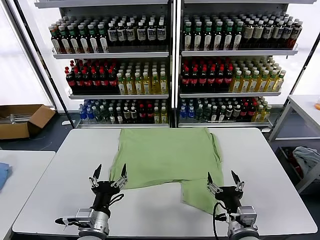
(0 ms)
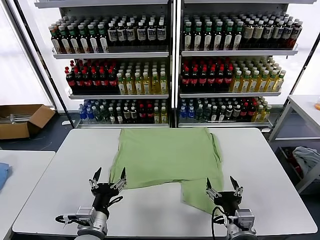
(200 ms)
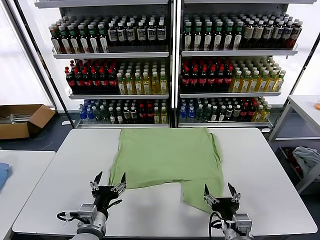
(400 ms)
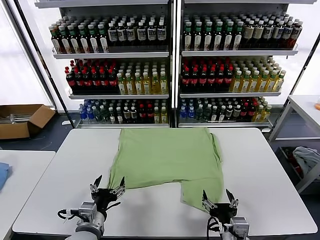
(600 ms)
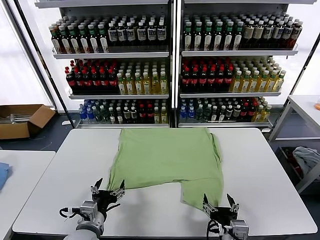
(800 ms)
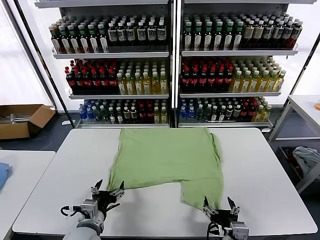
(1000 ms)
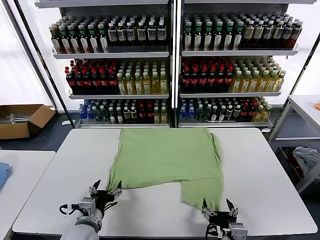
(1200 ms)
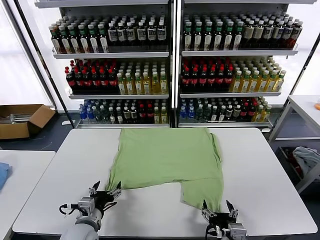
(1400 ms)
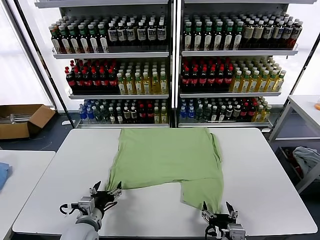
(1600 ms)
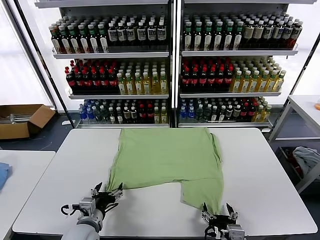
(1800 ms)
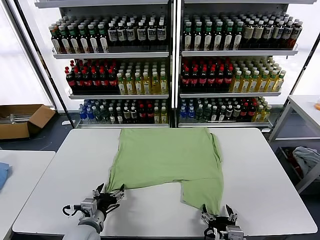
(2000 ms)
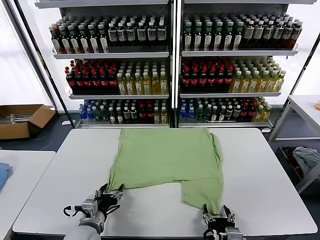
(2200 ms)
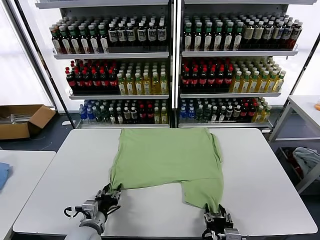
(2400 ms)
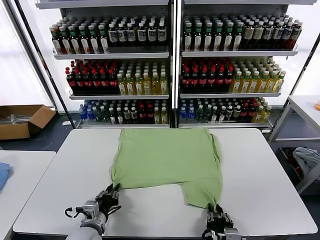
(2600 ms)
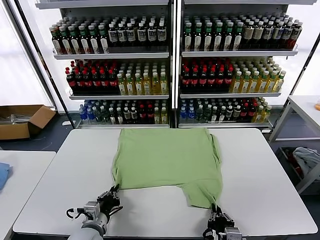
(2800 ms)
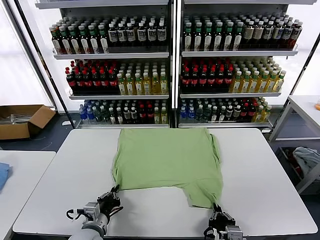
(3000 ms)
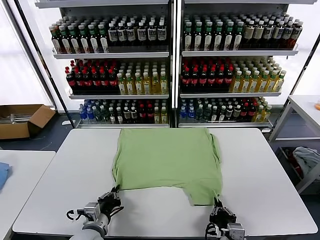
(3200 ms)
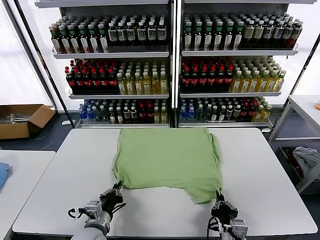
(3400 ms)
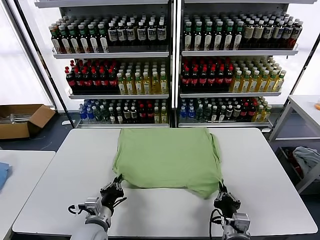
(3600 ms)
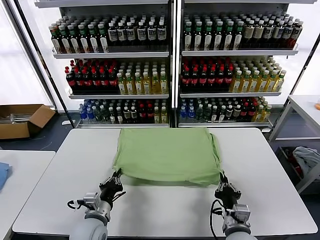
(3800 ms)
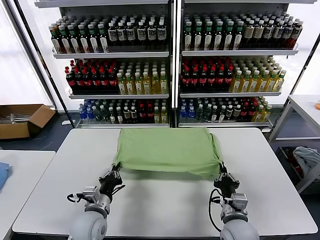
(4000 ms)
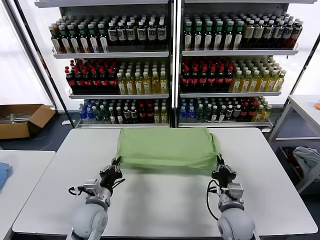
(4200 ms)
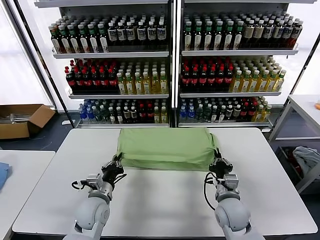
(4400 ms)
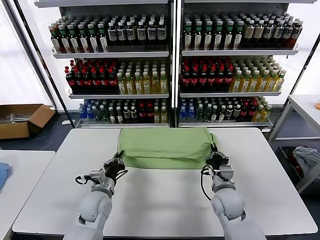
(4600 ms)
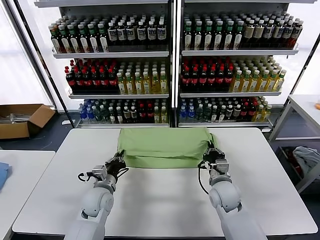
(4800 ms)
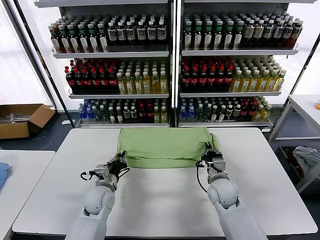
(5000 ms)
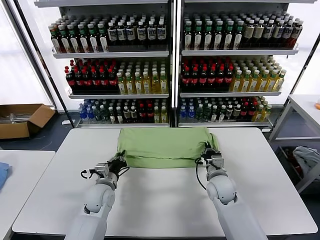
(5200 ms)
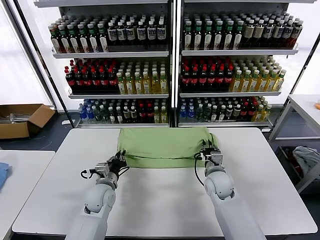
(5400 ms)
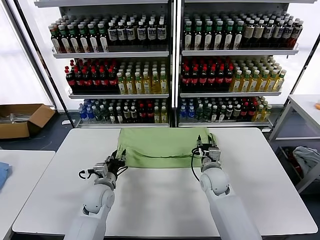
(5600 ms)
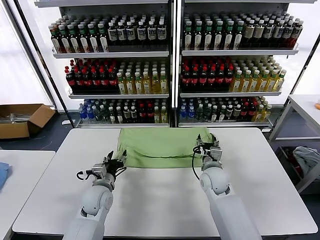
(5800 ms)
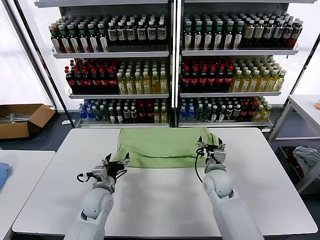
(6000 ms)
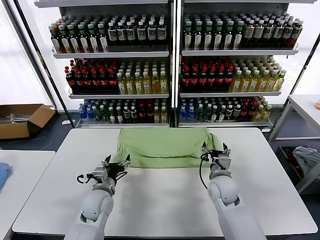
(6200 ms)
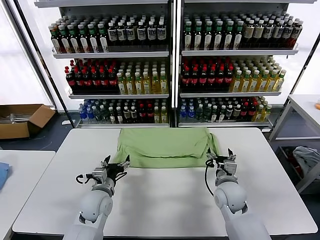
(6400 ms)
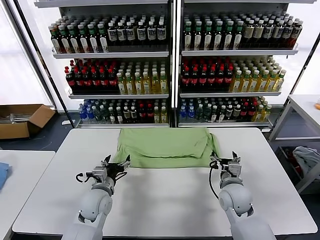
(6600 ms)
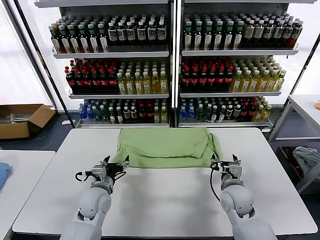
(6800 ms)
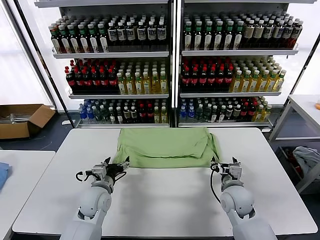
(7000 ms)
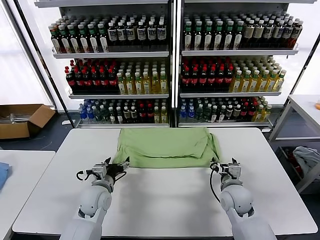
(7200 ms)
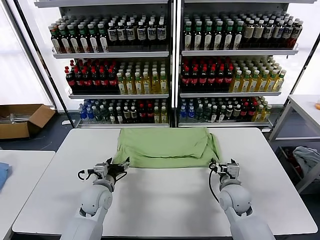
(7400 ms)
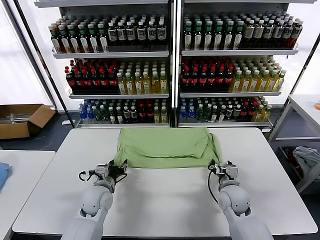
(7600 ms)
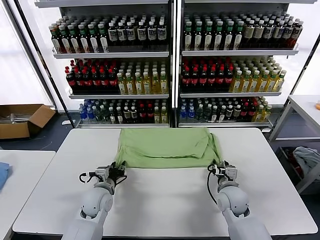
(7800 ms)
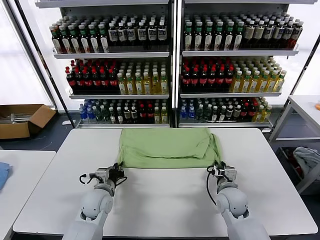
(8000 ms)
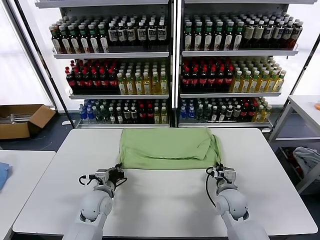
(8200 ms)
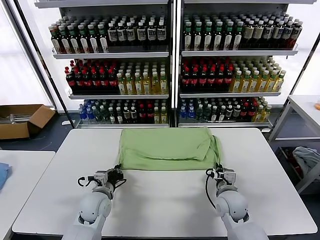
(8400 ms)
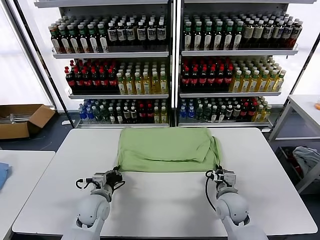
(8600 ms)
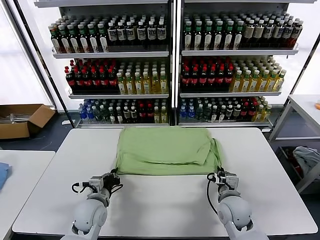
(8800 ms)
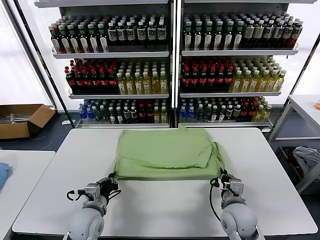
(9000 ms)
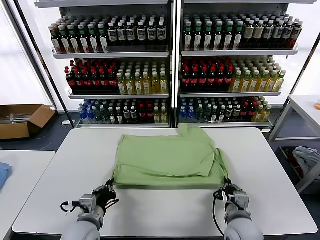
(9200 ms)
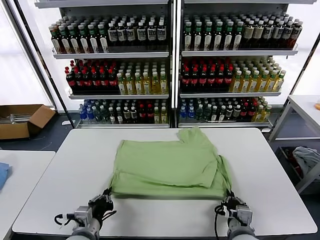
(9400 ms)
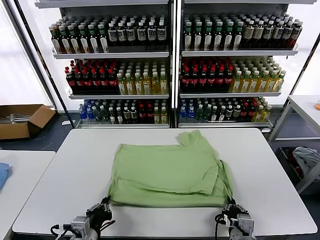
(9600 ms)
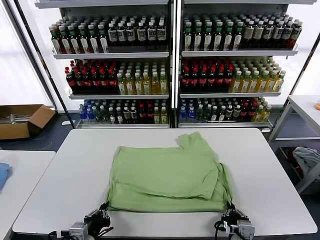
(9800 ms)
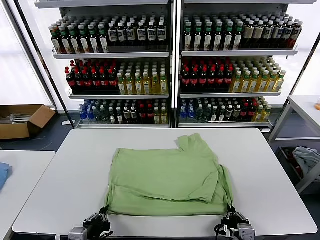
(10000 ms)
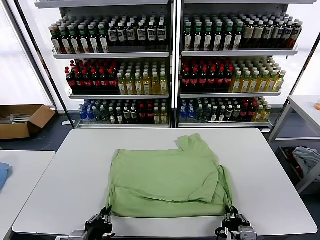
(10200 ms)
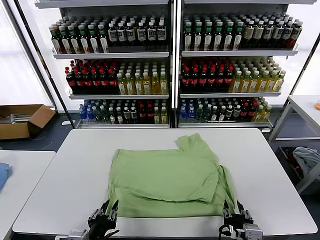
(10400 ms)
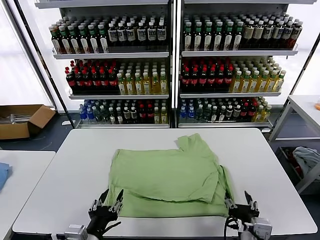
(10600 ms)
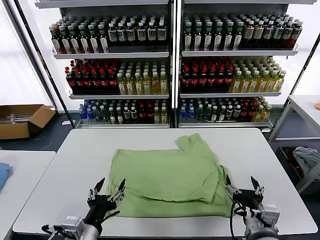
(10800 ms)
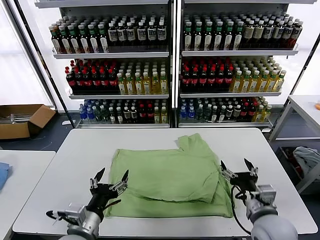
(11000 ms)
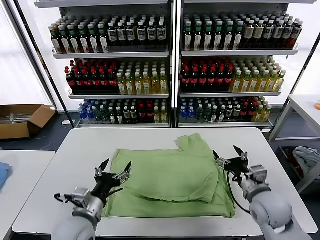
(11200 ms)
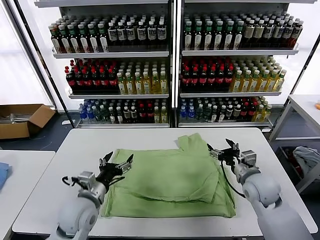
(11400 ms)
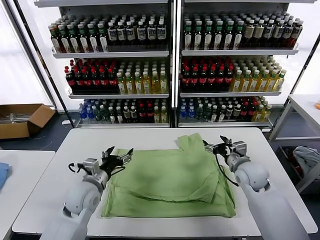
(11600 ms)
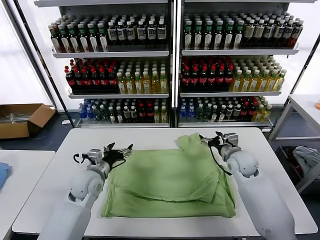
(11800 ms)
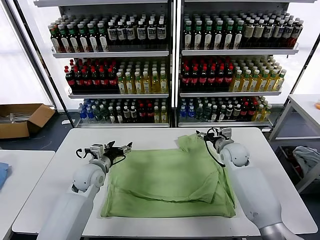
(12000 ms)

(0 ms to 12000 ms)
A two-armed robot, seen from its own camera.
Task of the whole recording: fold and organize the clothes.
Step, 0 ms - 2800 ms: use both grippers simultaneously to clamp the lower edge of the clothing fabric.
Step, 3000 ms - 5400 ms: use both grippers to drag the lower edge of the fabric forward and fold it over the upper edge.
Step, 5800 ms - 10400 ms: Drag the clothes downward with both gripper.
1600 ms - 3000 ms: The left gripper closes. Meanwhile the right gripper closes its fingers.
3000 ms - 4400 ms: The left gripper heads forward, covering some 10 cm. Meanwhile the right gripper heads forward, covering about 20 cm.
4400 ms - 6000 ms: The right gripper heads forward, covering approximately 5 cm, and opens up. Meanwhile the left gripper opens its fingers.
6000 ms - 7600 ms: The right gripper moves roughly 5 cm.
7600 ms - 9000 ms: Both grippers move backward, roughly 10 cm. The right gripper closes. The left gripper closes.
9000 ms - 10400 ms: Both grippers travel together backward, approximately 15 cm. The right gripper opens its fingers. The left gripper opens its fingers.
10400 ms - 12000 ms: The two grippers go approximately 35 cm forward. The right gripper opens its fingers. The left gripper opens its fingers.

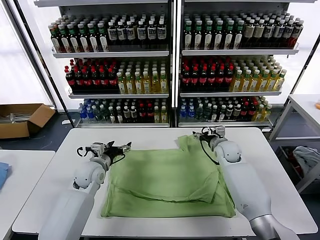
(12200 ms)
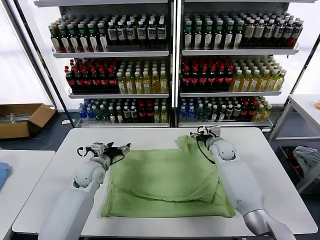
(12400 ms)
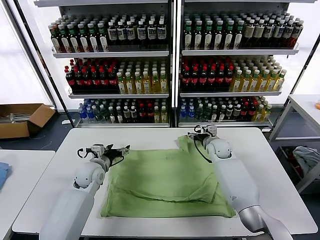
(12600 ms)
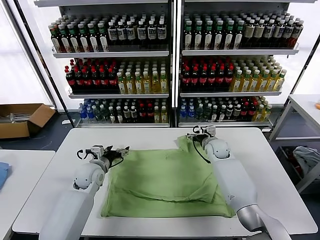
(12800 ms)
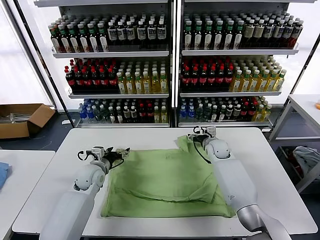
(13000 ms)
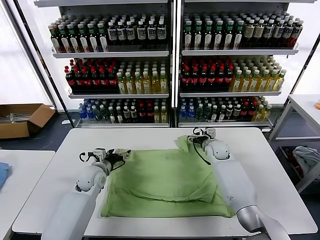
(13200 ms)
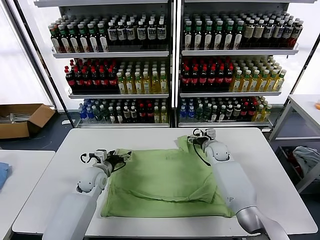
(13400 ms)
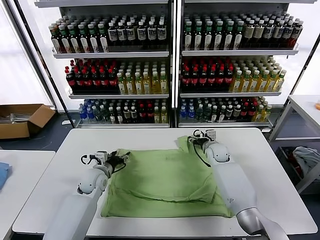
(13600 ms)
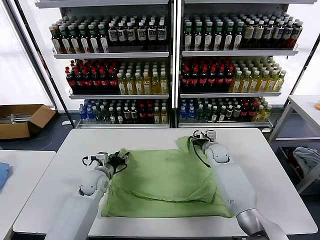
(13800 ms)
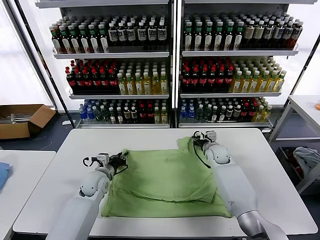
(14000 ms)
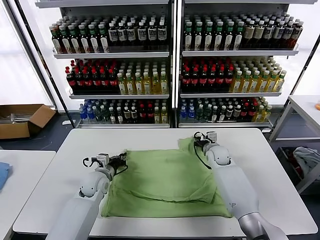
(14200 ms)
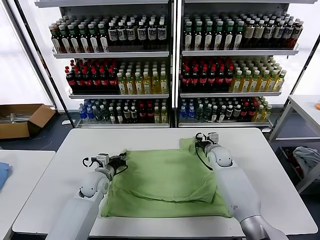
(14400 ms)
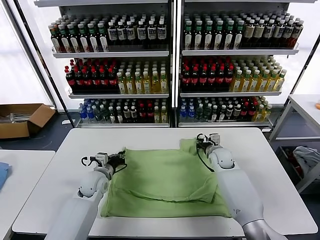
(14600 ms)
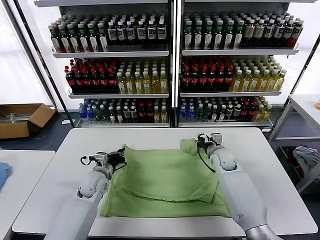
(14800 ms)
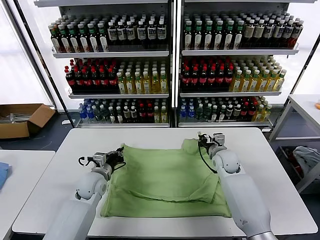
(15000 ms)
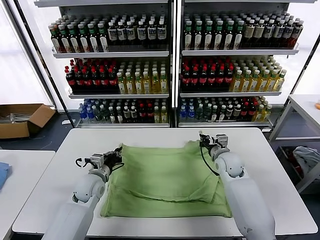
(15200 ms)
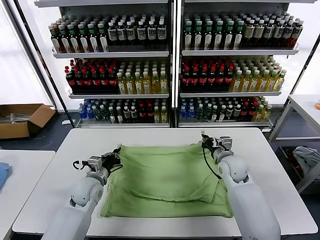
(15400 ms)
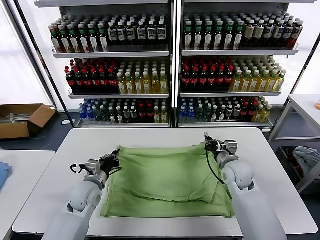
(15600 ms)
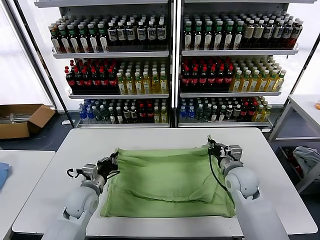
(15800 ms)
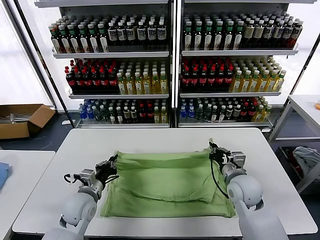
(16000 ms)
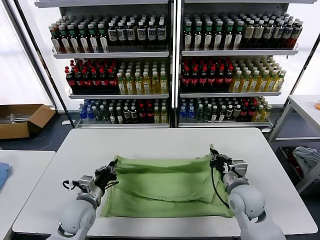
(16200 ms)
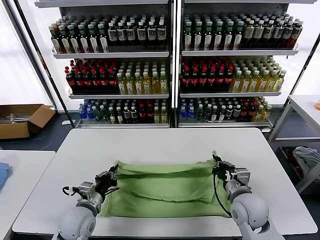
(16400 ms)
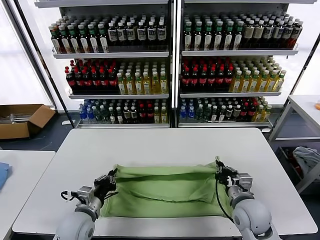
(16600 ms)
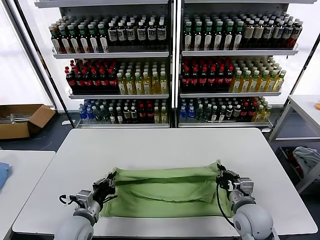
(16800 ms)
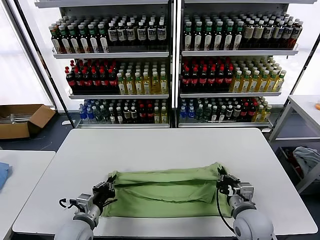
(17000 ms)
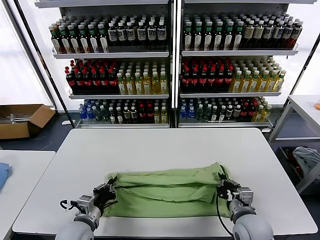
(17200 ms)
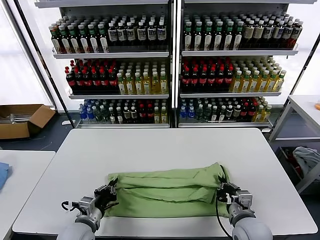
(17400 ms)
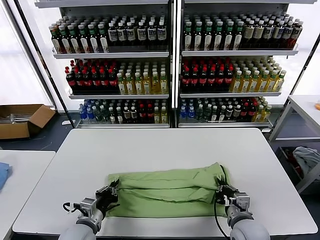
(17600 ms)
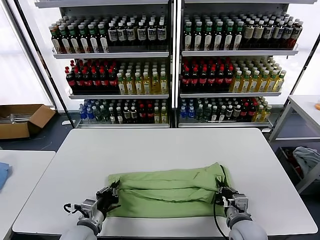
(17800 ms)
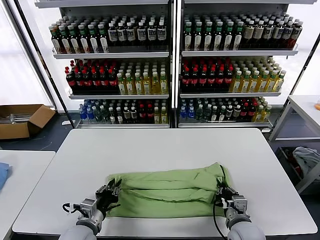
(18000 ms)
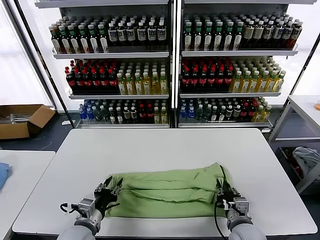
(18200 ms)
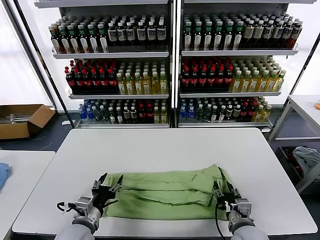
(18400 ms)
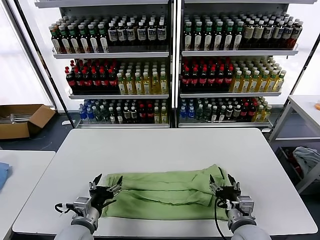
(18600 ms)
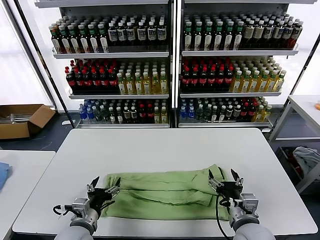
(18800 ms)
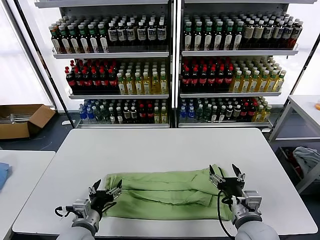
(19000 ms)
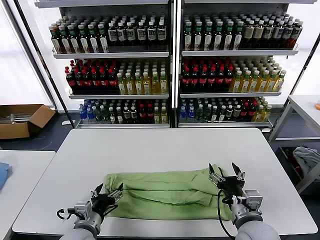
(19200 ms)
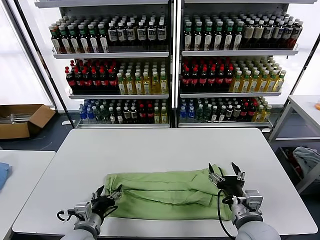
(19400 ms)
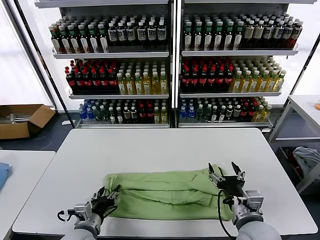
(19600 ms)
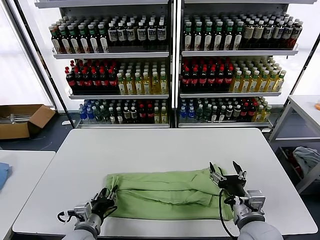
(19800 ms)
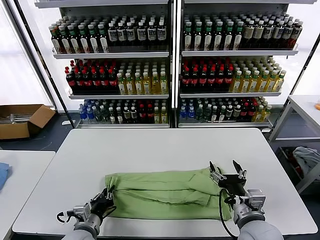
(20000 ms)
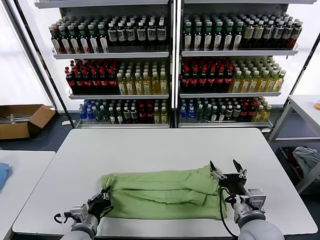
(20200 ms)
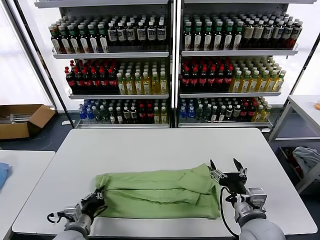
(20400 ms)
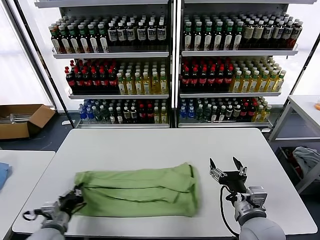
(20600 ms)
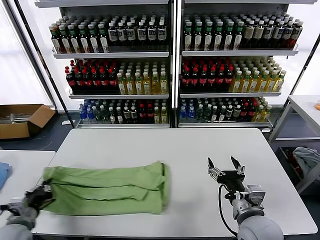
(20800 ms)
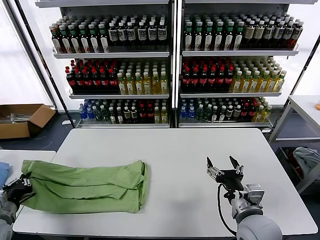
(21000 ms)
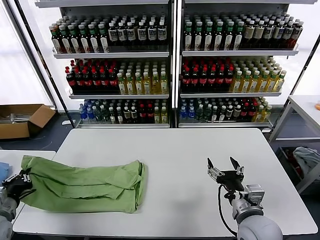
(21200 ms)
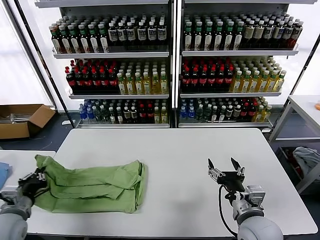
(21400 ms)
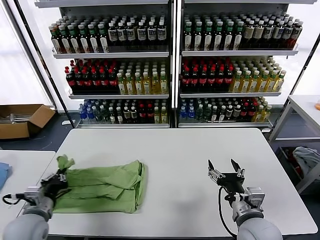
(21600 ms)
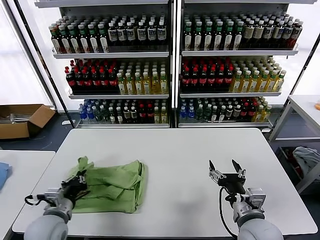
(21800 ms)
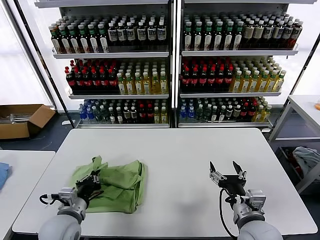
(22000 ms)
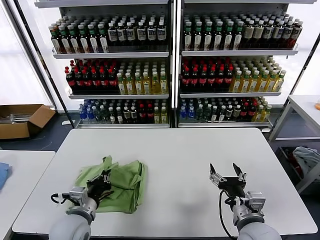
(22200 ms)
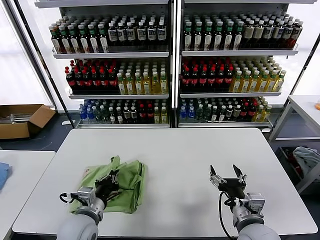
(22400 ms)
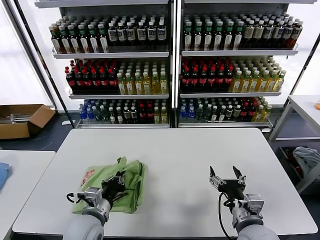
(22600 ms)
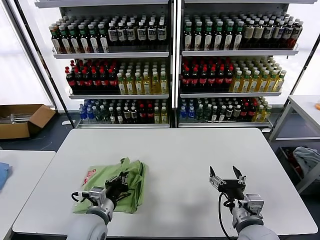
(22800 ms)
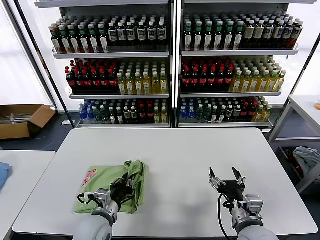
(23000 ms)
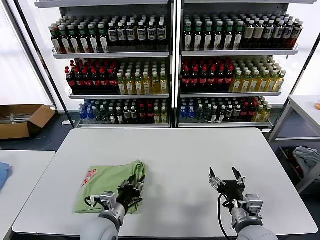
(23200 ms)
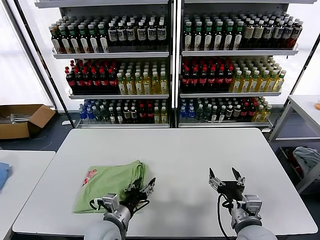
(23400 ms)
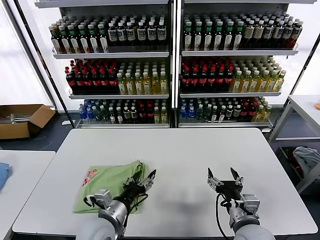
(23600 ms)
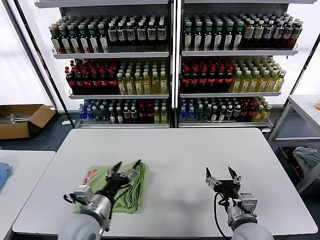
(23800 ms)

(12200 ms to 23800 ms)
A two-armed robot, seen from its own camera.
Task of the whole recording: fold and organize the clothes.
Step, 12200 ms - 14200 ms: use both grippers simultaneously to clamp the upper edge of the clothing fabric.
Step, 14600 ms - 18400 ms: use both grippers to drag the upper edge of the fabric backward and fold it over the lower edge.
Step, 18600 ms - 20000 ms: use the left gripper to clamp the left edge of the fabric.
Step, 20400 ms - 23400 ms: use the left gripper to drag the left edge of the fabric to the left and folds it over the right edge.
12200 ms - 13600 ms: The grippers move only a little.
13600 ms - 15000 ms: The left gripper closes its fingers. Meanwhile the right gripper is displaced backward by about 5 cm, and closes up.
15000 ms - 16600 ms: The two grippers go some 15 cm backward.
16600 ms - 18000 ms: The right gripper shifts some 5 cm downward.
18000 ms - 19400 ms: The left gripper opens; the right gripper is displaced upward by roughly 10 cm, and opens up.
19400 ms - 21000 ms: The left gripper is displaced to the left by about 25 cm, and closes up.
21000 ms - 22400 ms: The left gripper heads to the right, covering approximately 25 cm.
22400 ms - 23800 ms: The left gripper opens its fingers.
